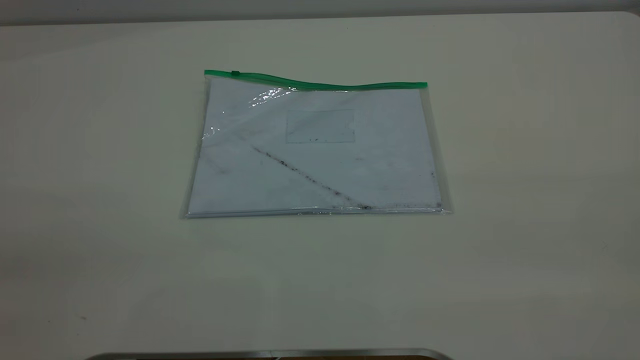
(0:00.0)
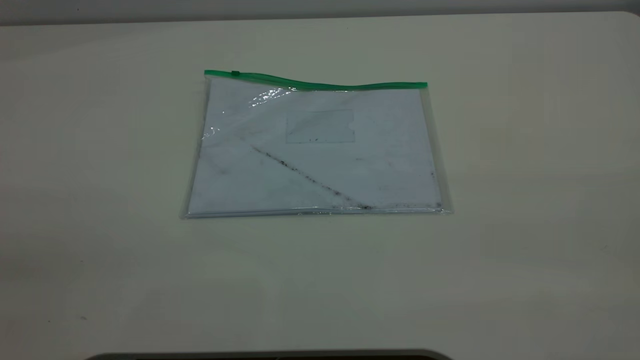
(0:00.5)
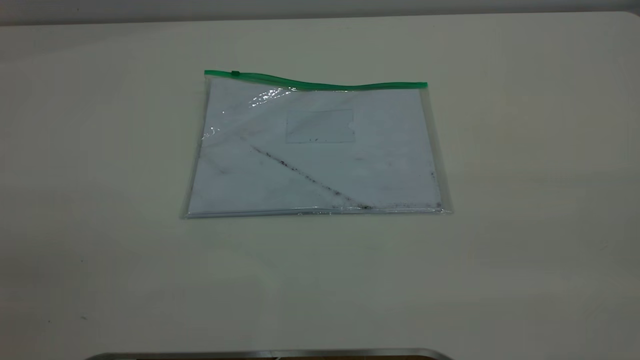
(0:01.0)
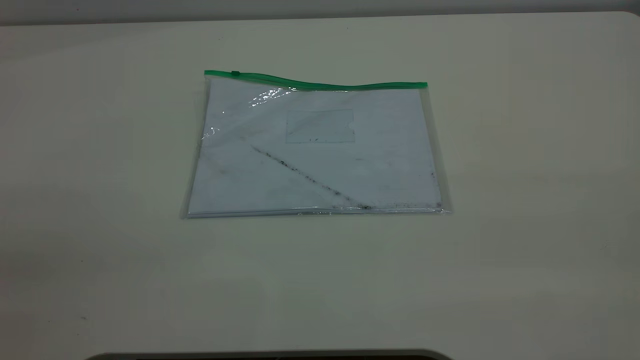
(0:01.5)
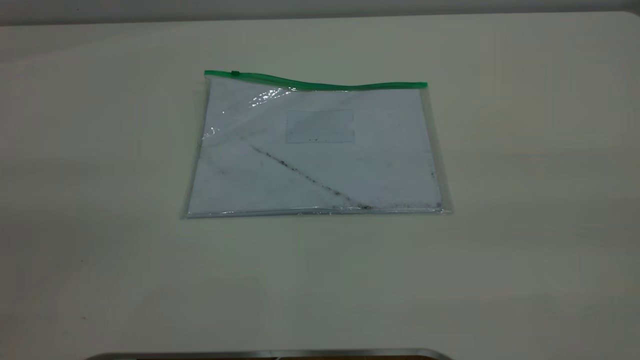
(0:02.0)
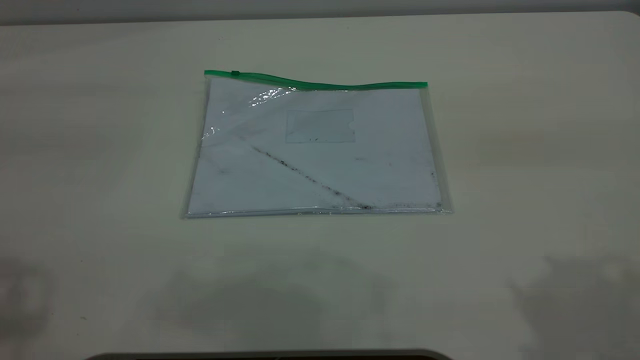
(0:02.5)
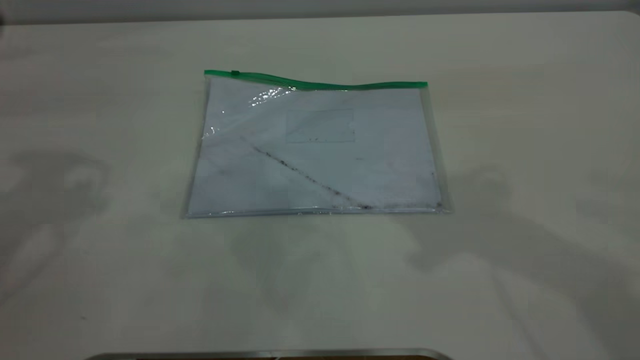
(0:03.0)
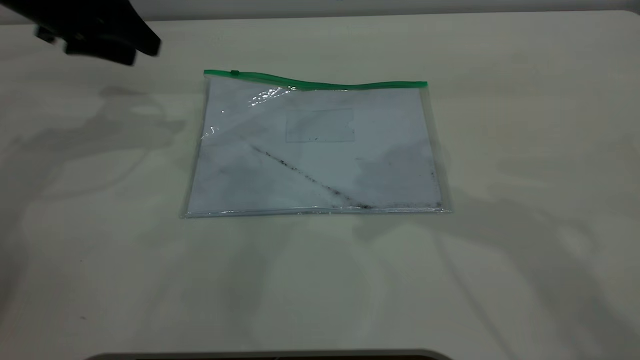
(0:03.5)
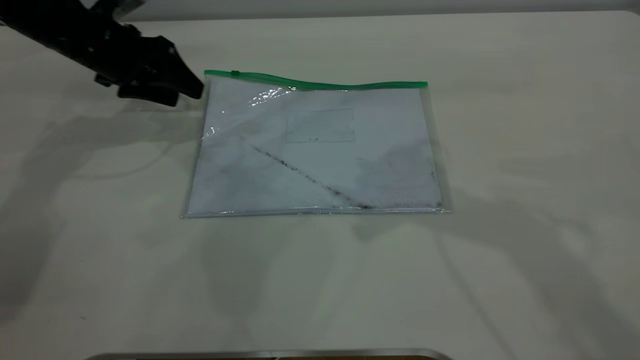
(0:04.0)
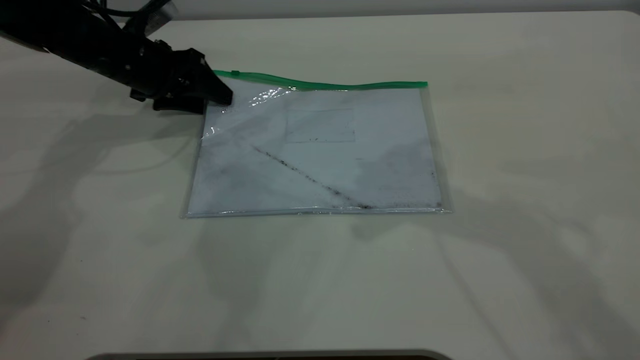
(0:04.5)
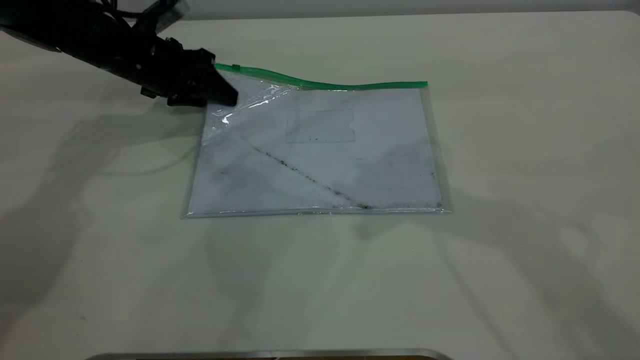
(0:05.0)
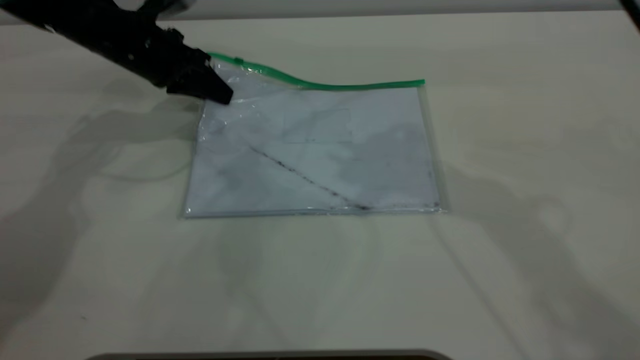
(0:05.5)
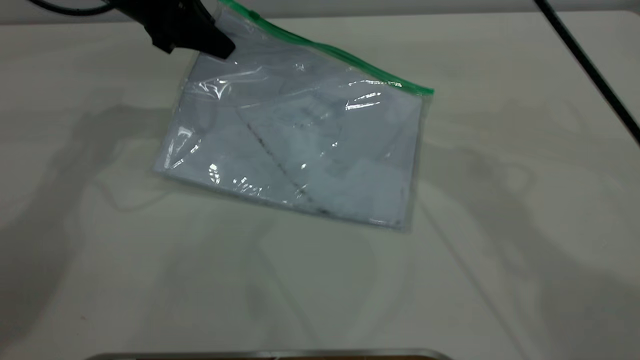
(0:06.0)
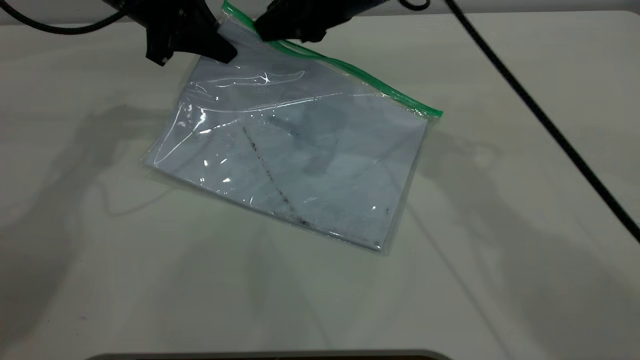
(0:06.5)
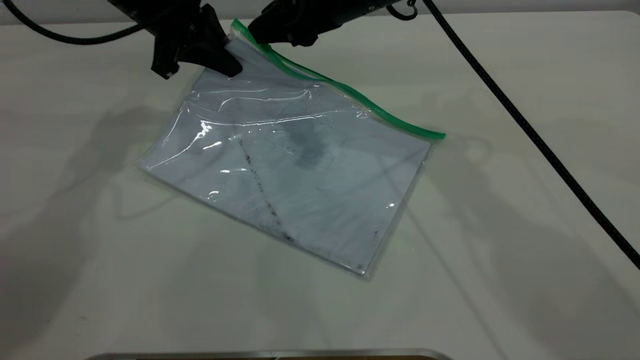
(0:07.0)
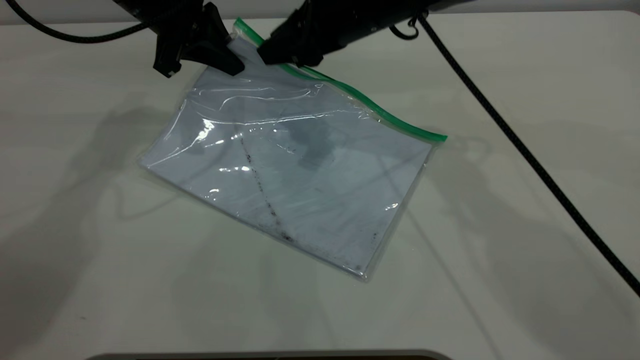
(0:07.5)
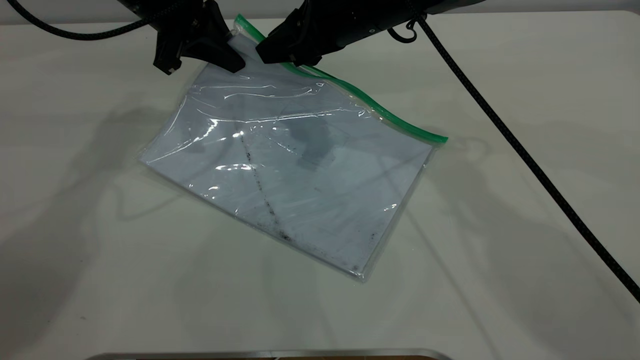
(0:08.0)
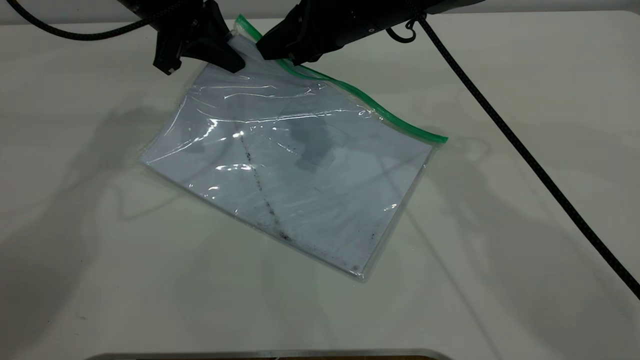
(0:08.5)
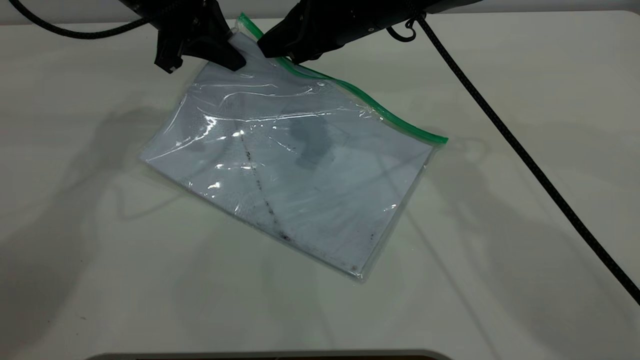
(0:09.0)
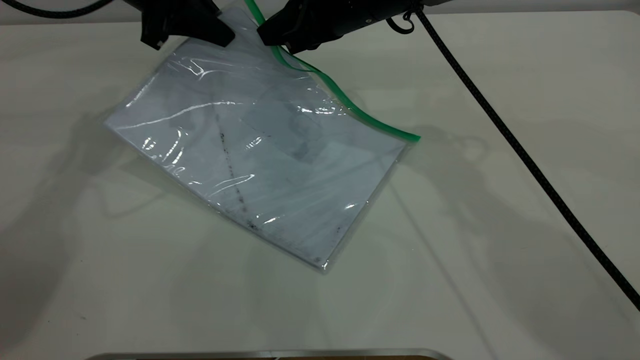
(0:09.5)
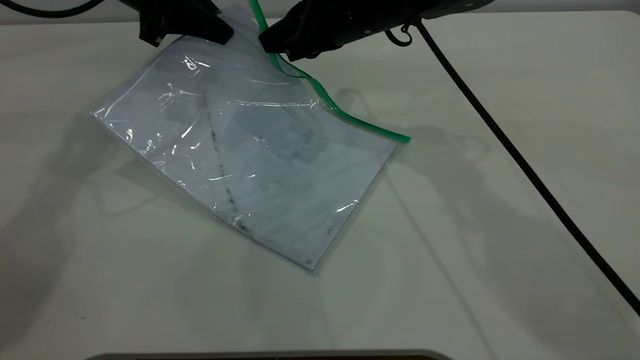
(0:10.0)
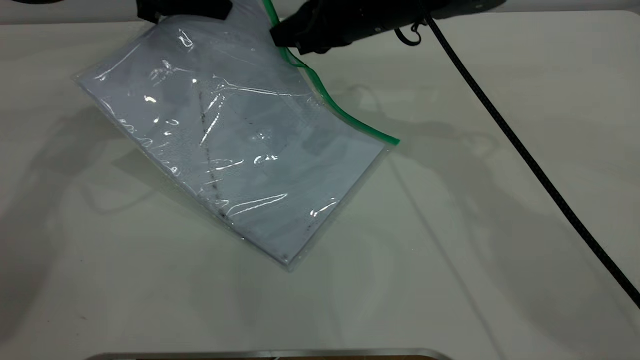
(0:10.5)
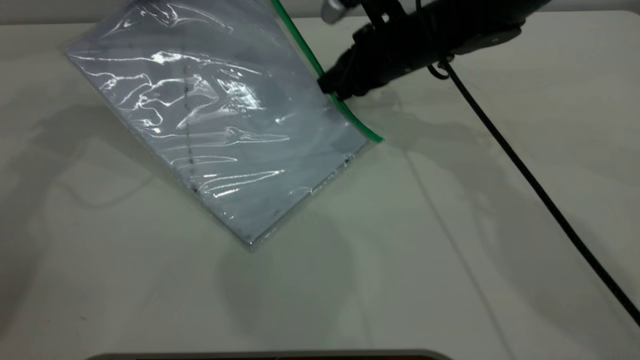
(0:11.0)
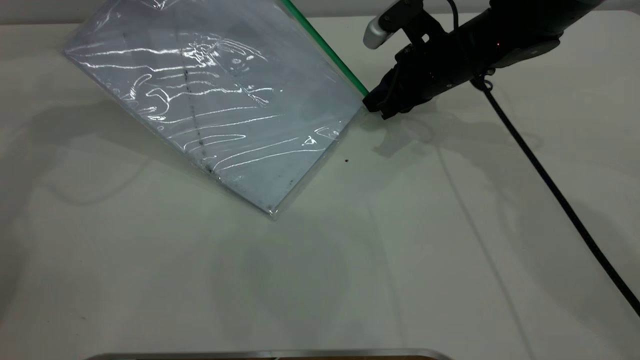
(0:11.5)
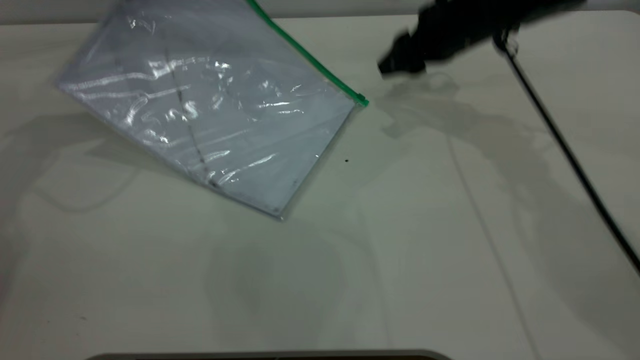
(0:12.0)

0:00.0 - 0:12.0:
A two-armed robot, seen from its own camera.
Step, 0:00.0 - 0:05.5: Pick up the transparent plastic bag with the left gripper.
Step, 0:06.0 - 0:11.5: Pulling up the zipper on the transparent plastic bag with the right gripper to close it.
0:02.0 - 0:04.0: The left gripper goes about 50 cm forward and downward.
0:04.0 - 0:06.0: The right gripper heads forward and downward, covering roughly 10 cm, and closes its fingers. The left gripper travels upward and to the right by roughly 10 cm, and closes up.
0:06.0 - 0:08.0: The right gripper moves downward, roughly 10 cm.
0:08.0 - 0:10.0: The right gripper closes its fingers.
0:10.0 - 0:12.0: The right gripper moves to the right, about 10 cm, and opens its fingers, while the left gripper is displaced to the left by roughly 5 cm.

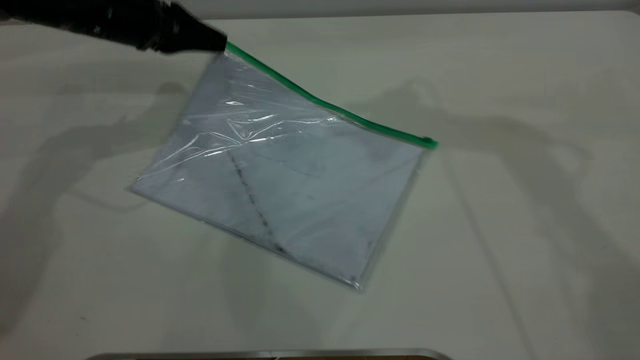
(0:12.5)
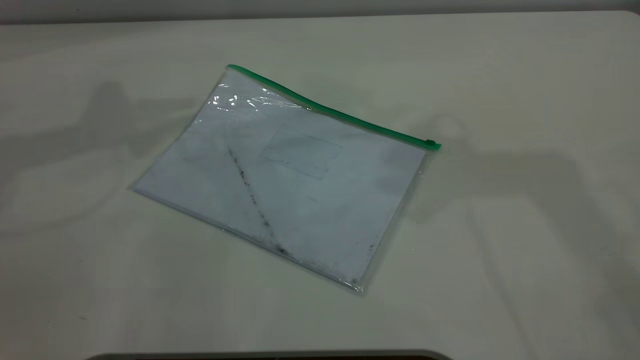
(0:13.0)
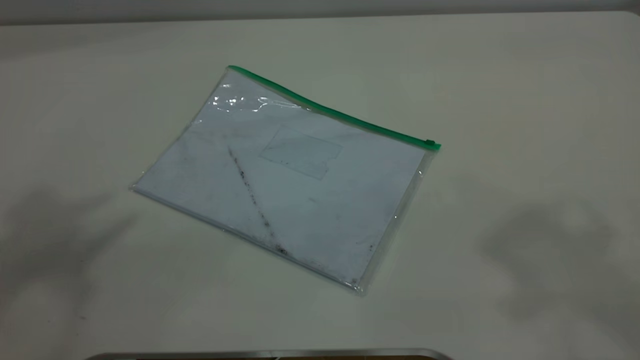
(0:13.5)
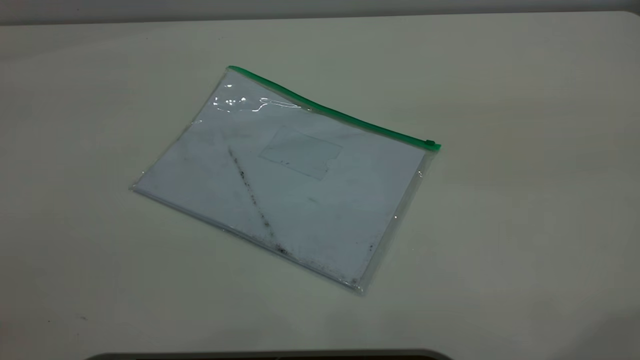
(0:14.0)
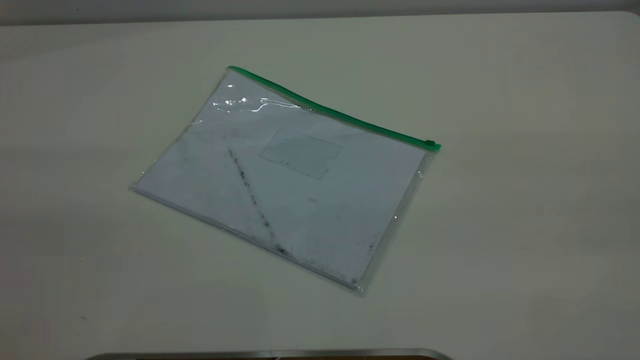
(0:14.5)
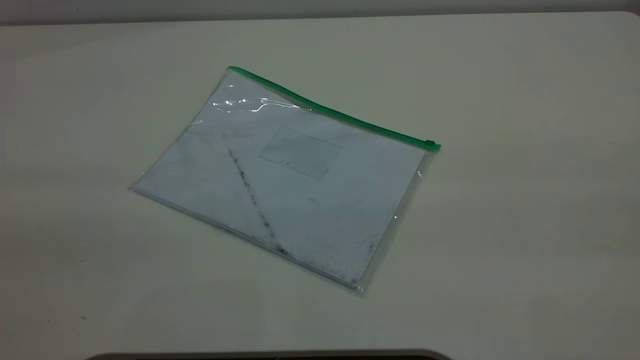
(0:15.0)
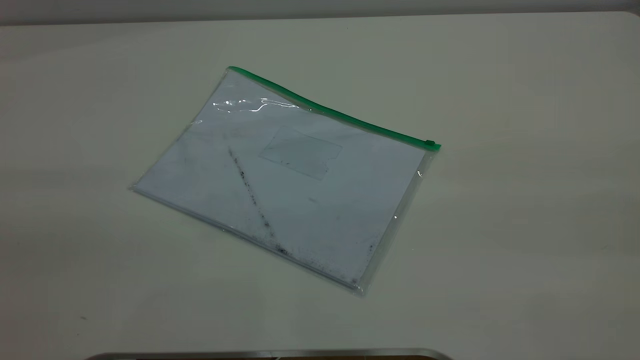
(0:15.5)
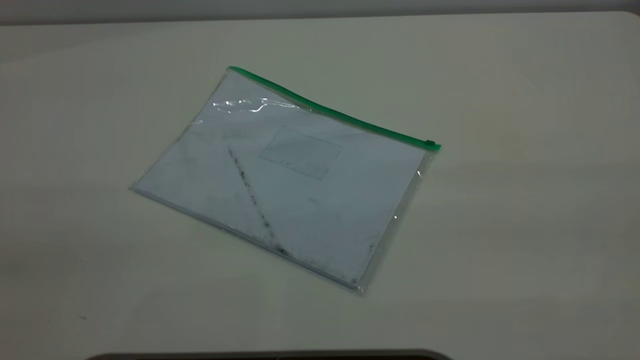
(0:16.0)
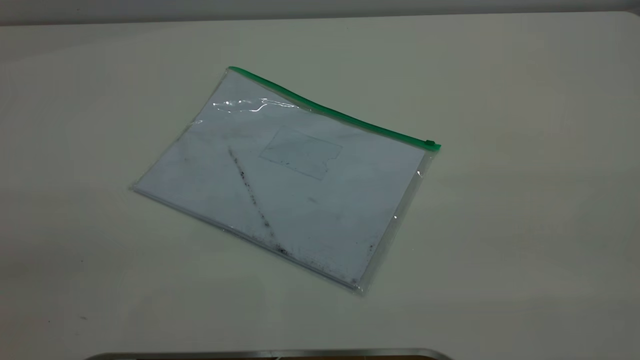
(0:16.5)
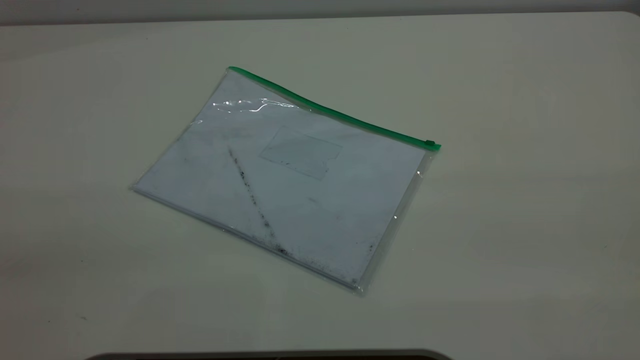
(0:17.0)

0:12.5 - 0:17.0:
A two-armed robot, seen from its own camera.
0:12.5 - 0:14.5: The left gripper is displaced backward and upward by roughly 50 cm. The right gripper moves backward, approximately 35 cm.

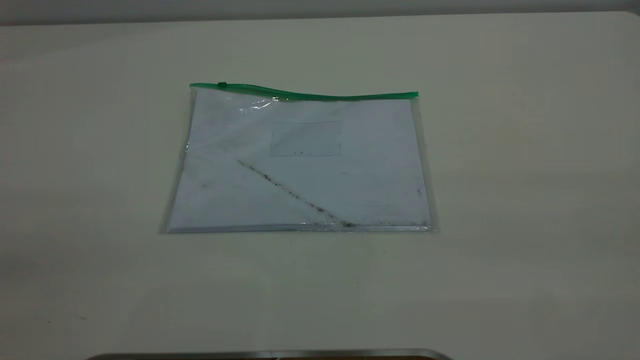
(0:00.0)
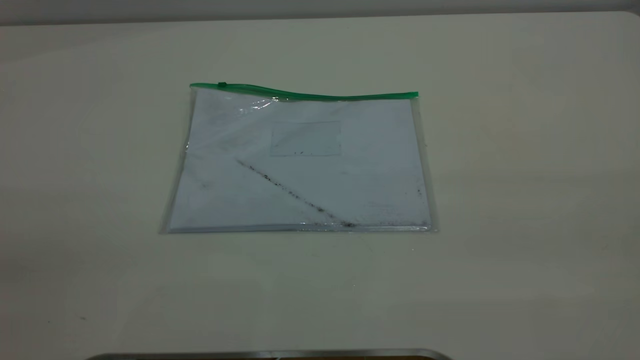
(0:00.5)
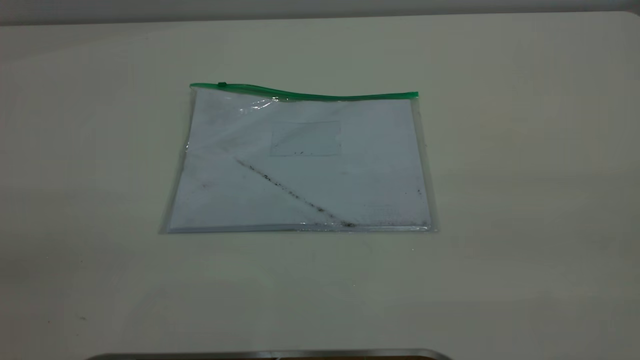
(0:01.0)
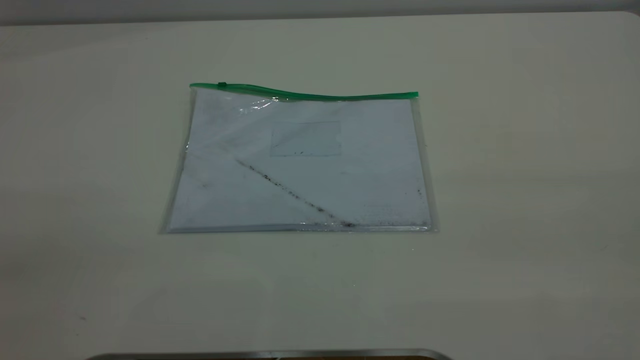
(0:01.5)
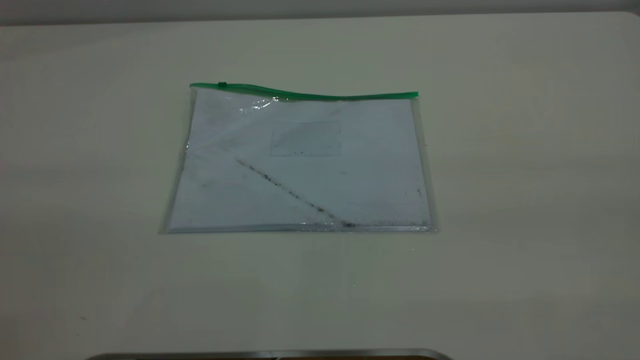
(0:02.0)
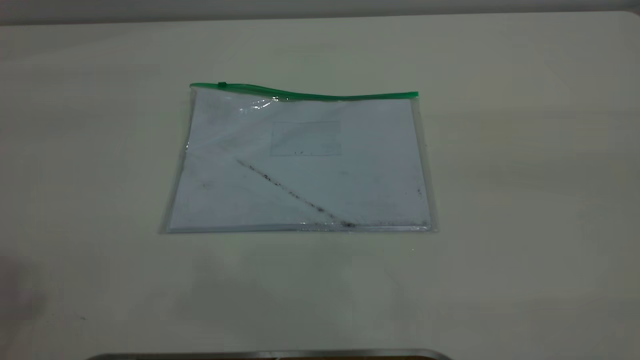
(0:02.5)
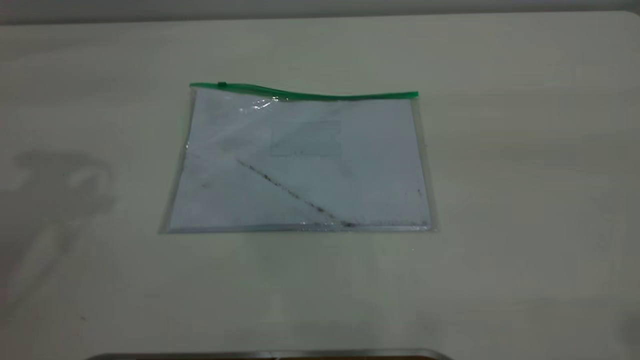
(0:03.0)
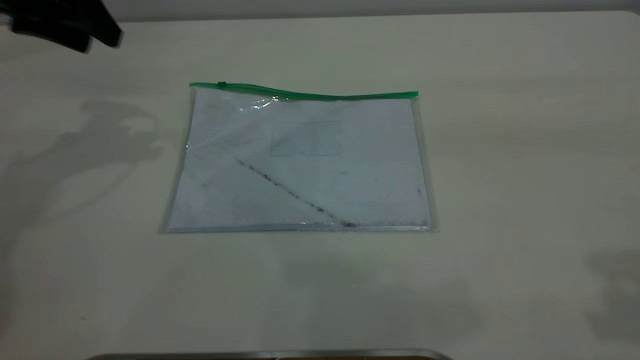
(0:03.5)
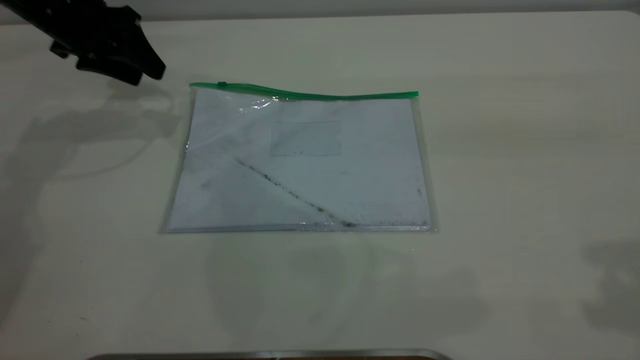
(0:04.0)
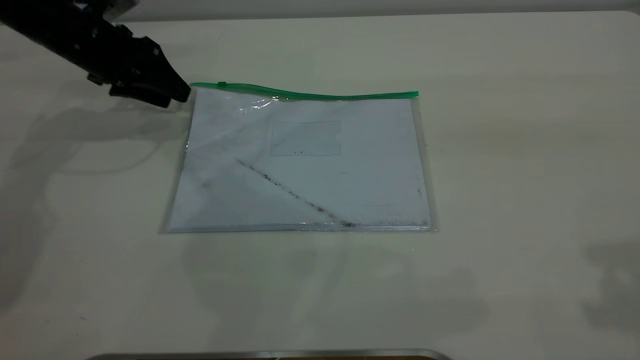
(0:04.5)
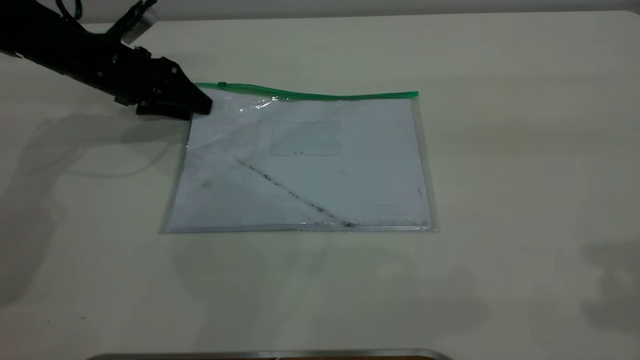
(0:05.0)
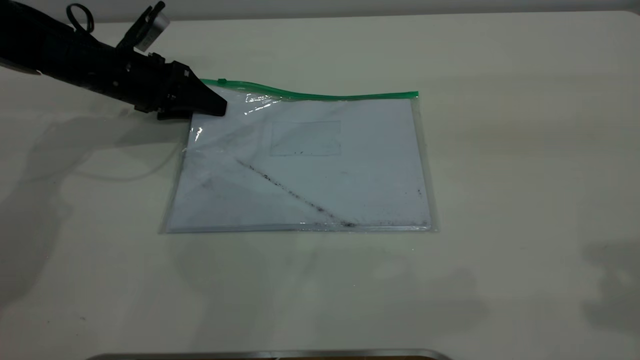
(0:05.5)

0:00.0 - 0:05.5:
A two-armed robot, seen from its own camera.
0:02.0 - 0:03.5: The left gripper shifts approximately 40 cm forward and downward.
0:03.5 - 0:05.5: The left gripper heads downward, covering about 15 cm.
